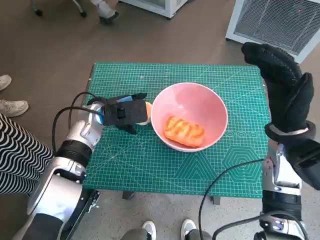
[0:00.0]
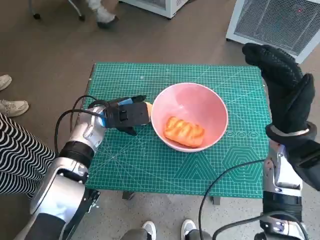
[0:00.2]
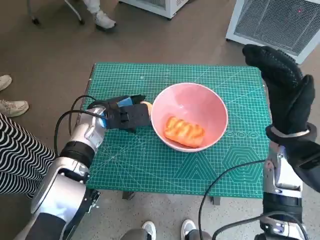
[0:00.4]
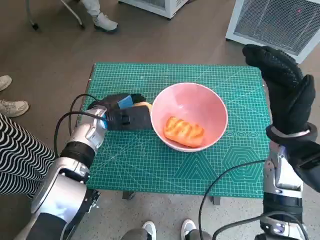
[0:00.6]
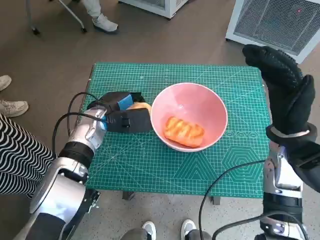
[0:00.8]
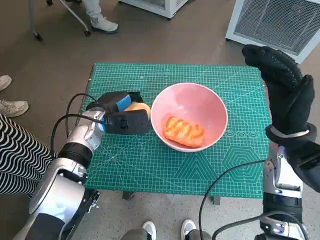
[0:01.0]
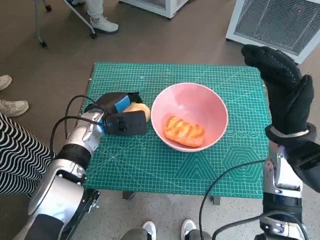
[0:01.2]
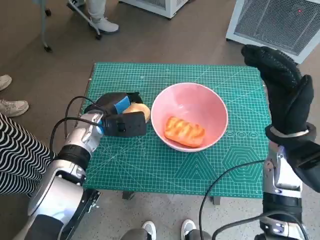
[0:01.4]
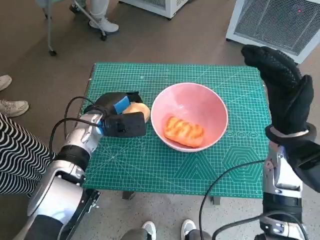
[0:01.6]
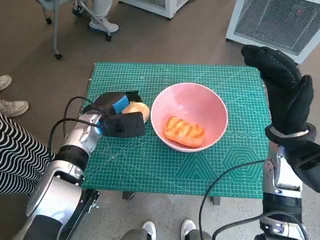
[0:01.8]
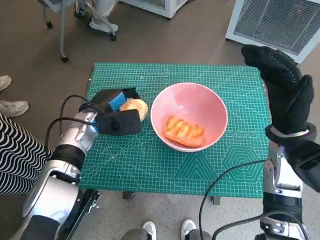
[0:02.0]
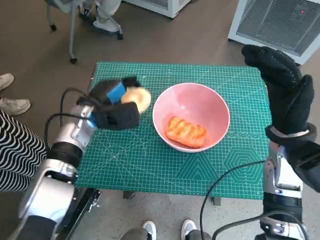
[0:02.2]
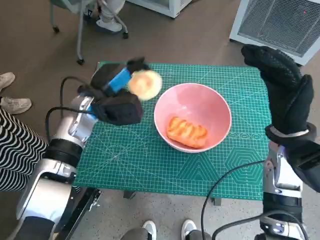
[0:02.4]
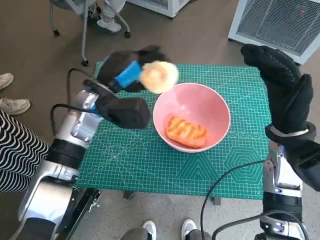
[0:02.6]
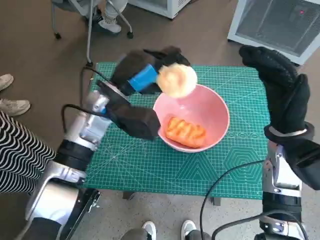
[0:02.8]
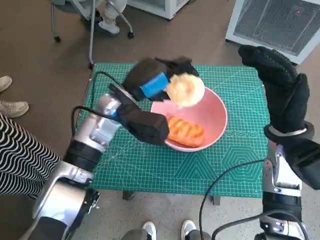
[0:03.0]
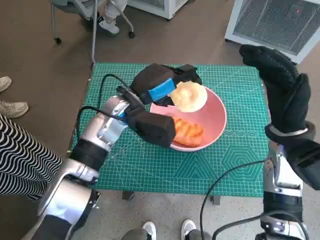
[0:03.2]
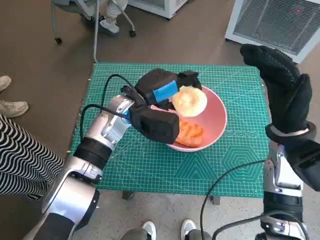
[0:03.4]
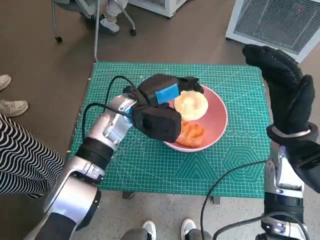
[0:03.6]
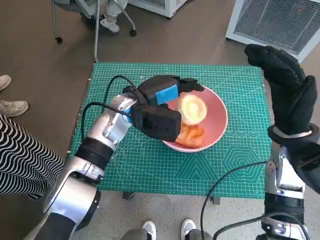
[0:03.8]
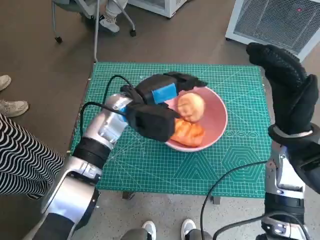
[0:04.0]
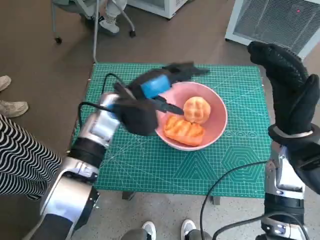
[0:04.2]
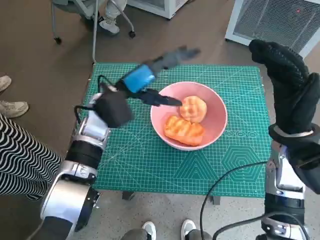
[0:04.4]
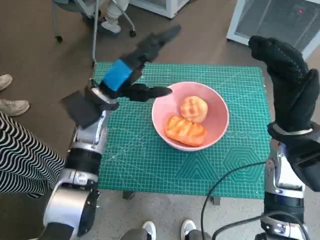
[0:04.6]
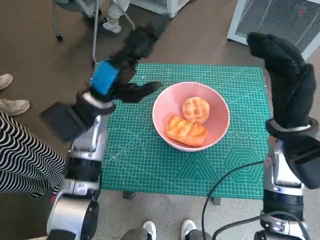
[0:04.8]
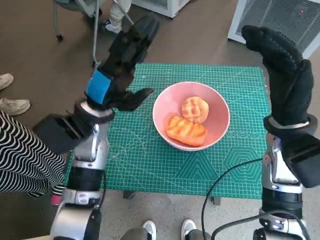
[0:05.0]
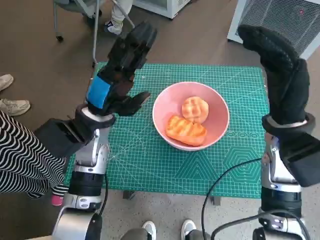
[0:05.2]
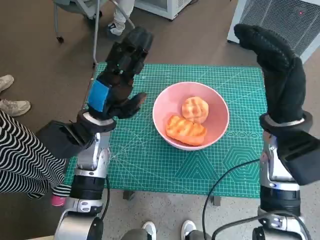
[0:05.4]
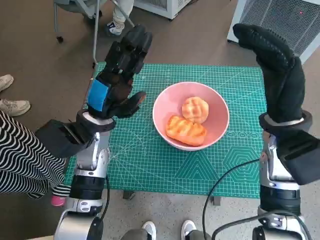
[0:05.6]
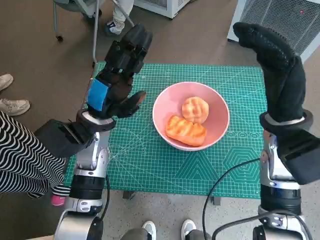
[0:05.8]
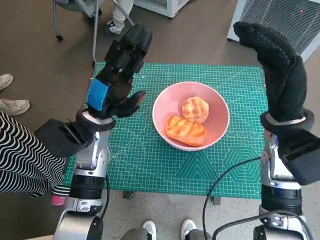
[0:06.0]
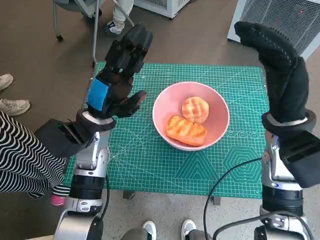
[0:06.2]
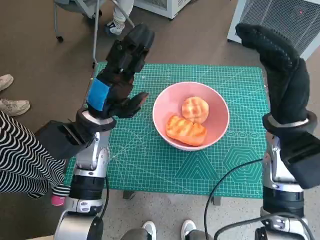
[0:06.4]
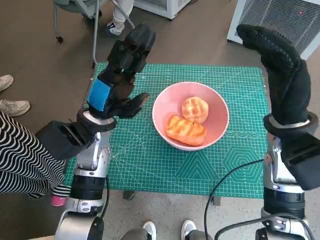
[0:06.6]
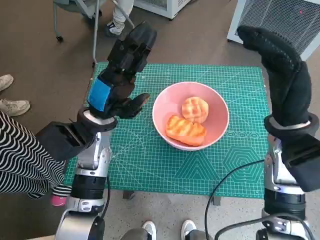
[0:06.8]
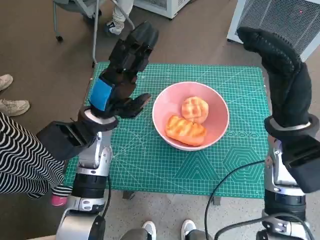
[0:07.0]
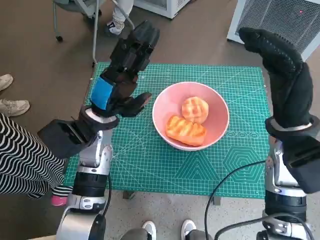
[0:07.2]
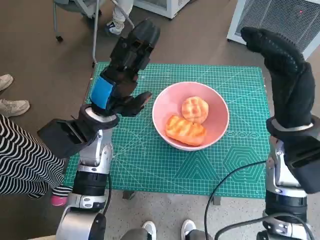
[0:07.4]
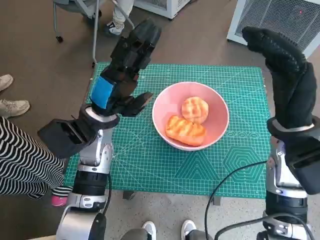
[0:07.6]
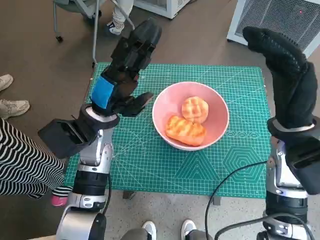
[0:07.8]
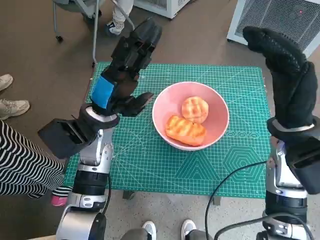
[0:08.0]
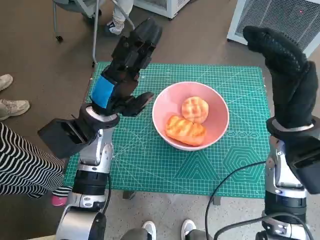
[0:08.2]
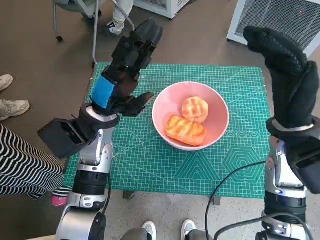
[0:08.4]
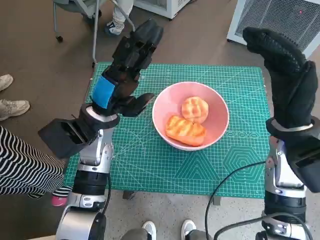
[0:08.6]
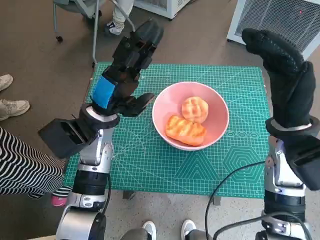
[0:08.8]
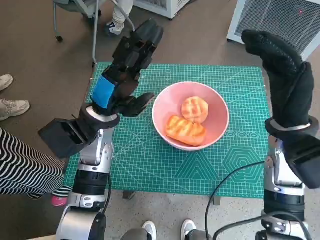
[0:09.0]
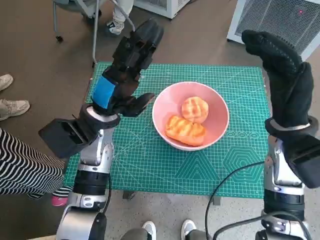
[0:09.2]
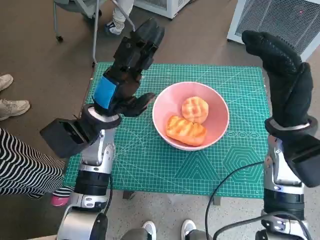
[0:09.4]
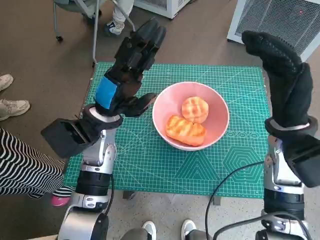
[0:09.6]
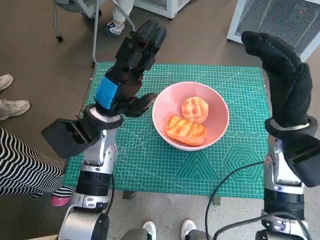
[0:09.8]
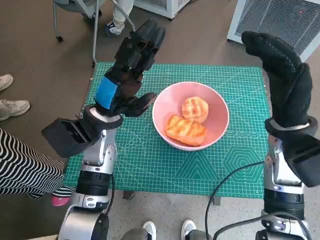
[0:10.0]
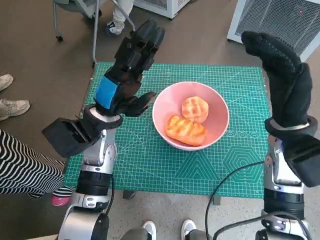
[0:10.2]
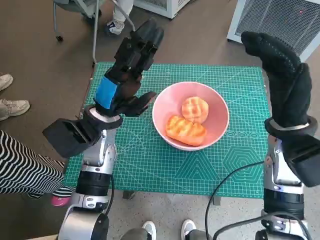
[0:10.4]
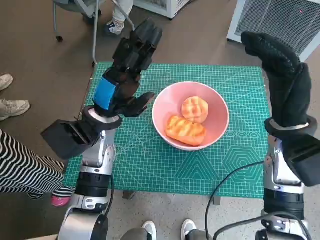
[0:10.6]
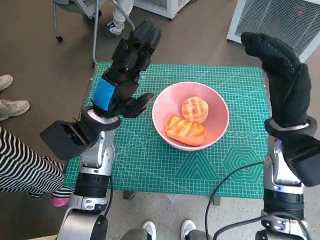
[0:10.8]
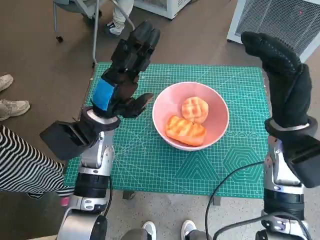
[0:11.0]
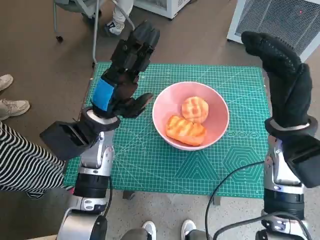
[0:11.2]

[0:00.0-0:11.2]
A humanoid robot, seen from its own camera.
Task of the whole recording: Push the bowl into the center of the table and put the bread into the bowl.
Step, 0:01.0 to 0:04.4: Place the round bread in pink bowl with left hand.
0:00.0 to 0:01.6: There are only small adjustments of the hands.
0:01.6 to 0:03.2: The left hand travels to the right and upward by about 10 cm.
0:03.2 to 0:04.8: The left hand is displaced to the left by approximately 5 cm.
0:06.4 to 0:08.0: Both hands stay about where they are.
0:08.0 to 0:09.6: The two hands keep their place.
0:09.6 to 0:11.2: Both hands stay put.

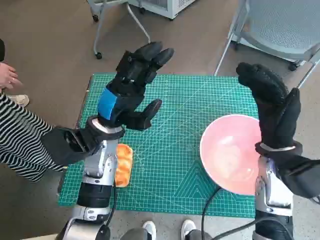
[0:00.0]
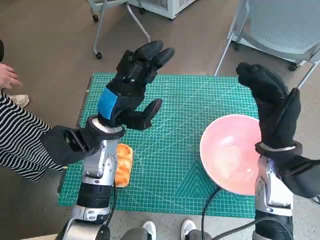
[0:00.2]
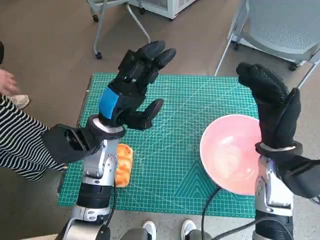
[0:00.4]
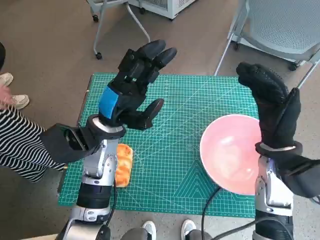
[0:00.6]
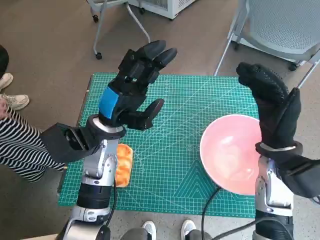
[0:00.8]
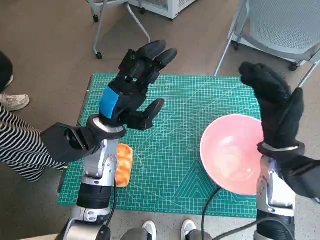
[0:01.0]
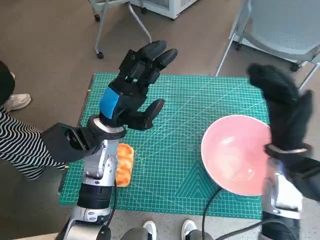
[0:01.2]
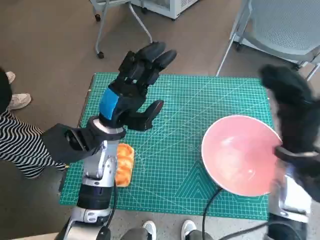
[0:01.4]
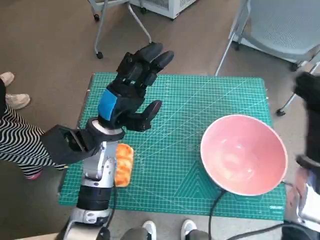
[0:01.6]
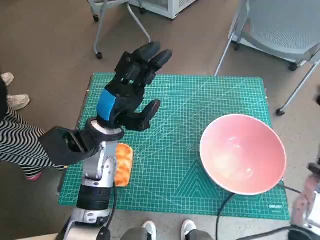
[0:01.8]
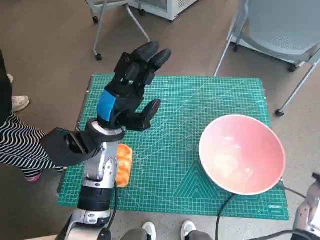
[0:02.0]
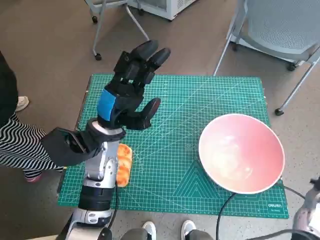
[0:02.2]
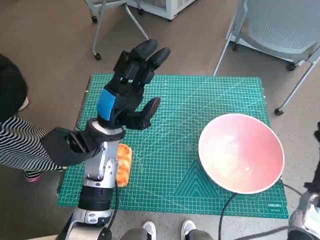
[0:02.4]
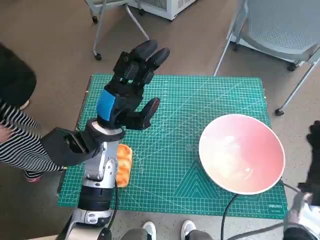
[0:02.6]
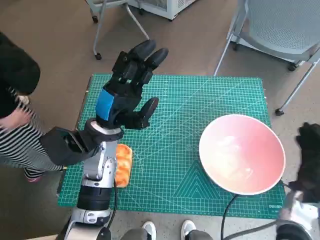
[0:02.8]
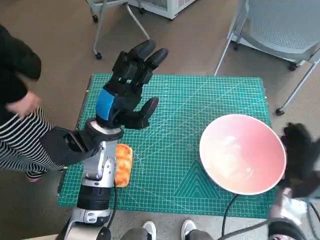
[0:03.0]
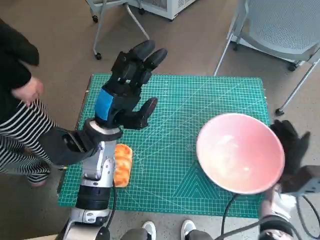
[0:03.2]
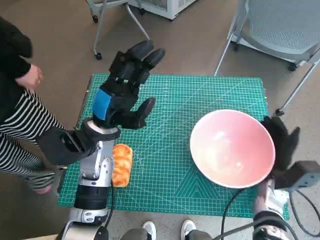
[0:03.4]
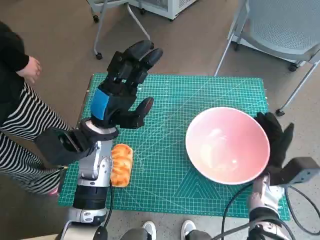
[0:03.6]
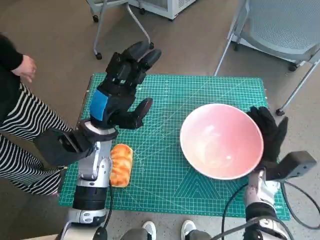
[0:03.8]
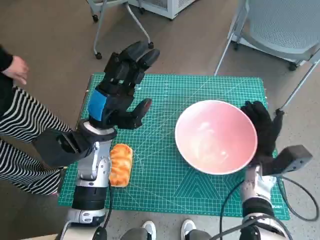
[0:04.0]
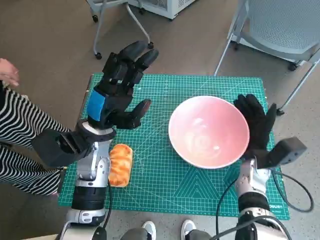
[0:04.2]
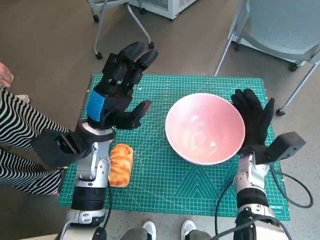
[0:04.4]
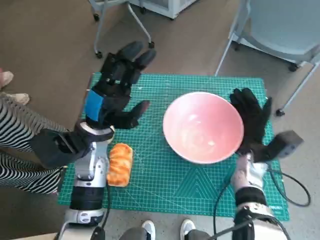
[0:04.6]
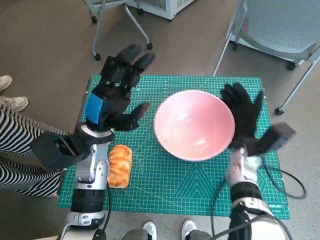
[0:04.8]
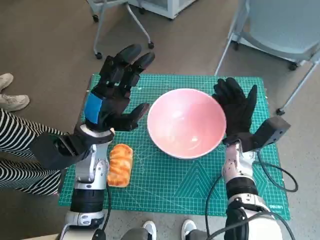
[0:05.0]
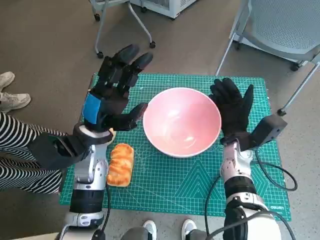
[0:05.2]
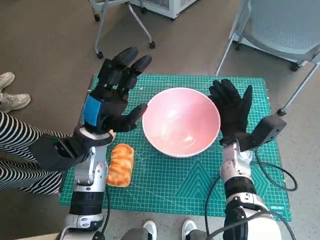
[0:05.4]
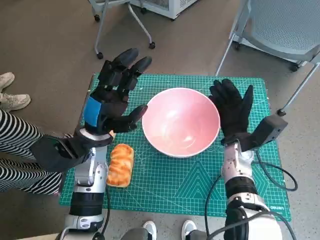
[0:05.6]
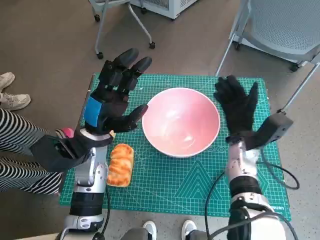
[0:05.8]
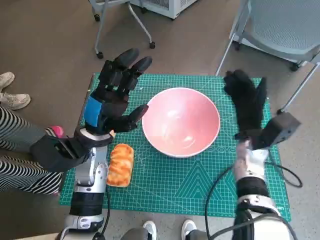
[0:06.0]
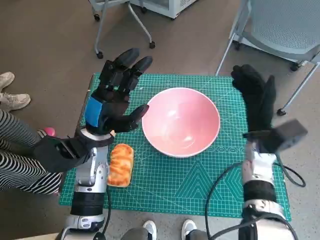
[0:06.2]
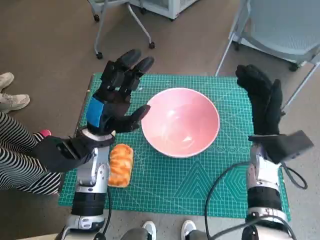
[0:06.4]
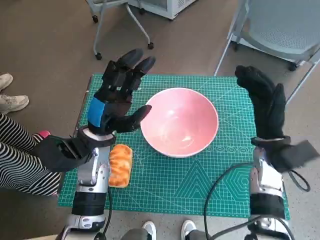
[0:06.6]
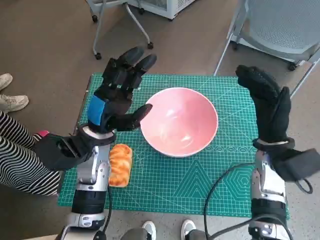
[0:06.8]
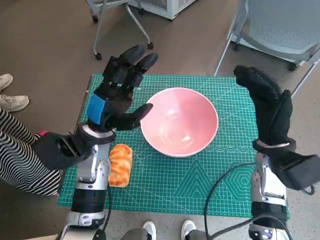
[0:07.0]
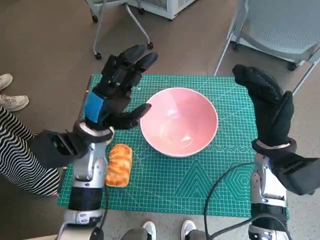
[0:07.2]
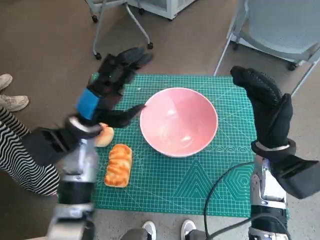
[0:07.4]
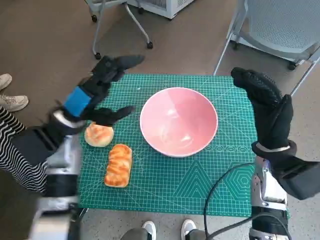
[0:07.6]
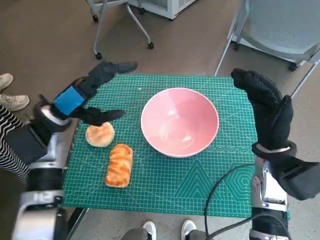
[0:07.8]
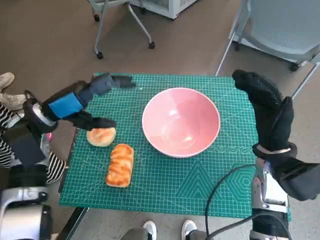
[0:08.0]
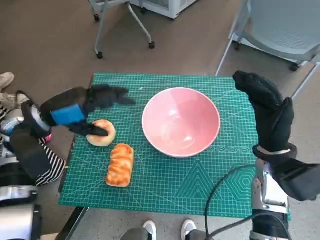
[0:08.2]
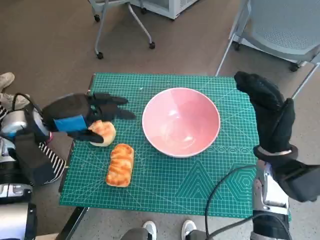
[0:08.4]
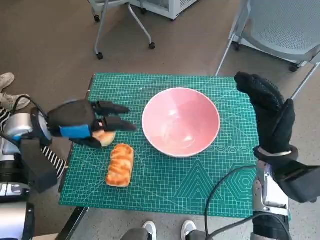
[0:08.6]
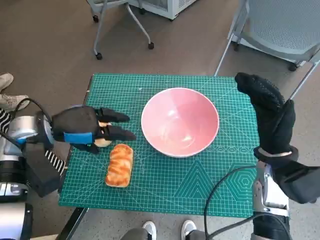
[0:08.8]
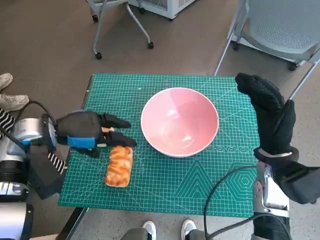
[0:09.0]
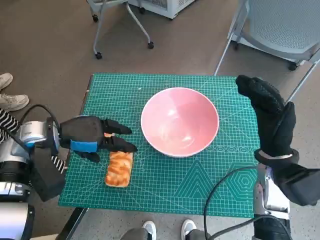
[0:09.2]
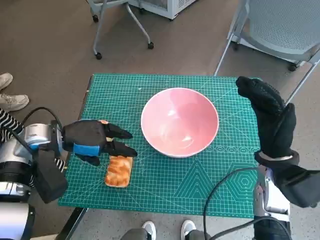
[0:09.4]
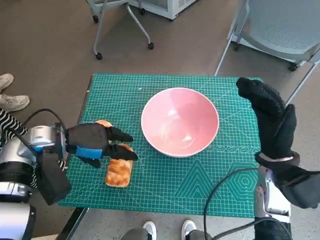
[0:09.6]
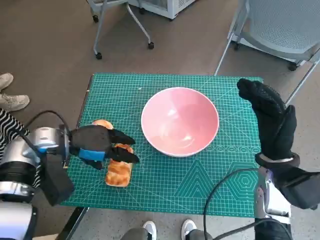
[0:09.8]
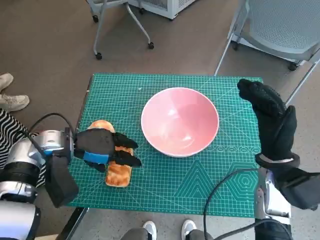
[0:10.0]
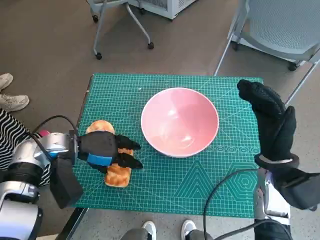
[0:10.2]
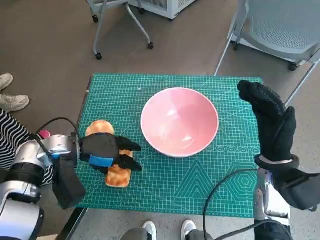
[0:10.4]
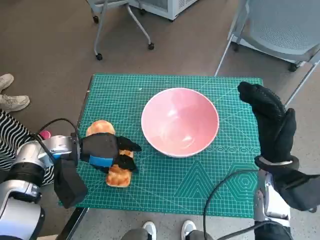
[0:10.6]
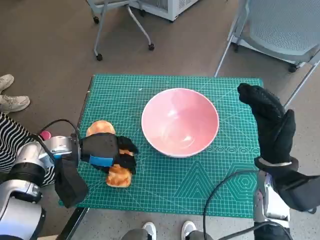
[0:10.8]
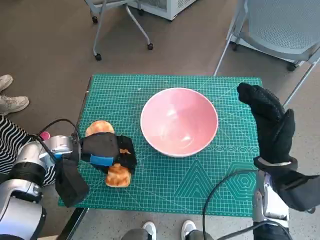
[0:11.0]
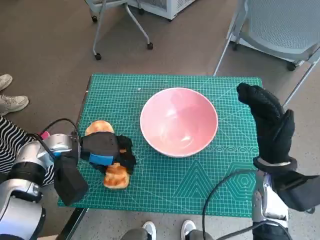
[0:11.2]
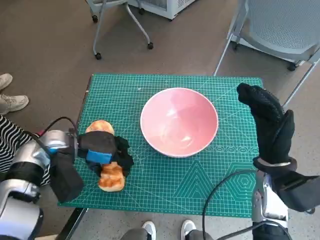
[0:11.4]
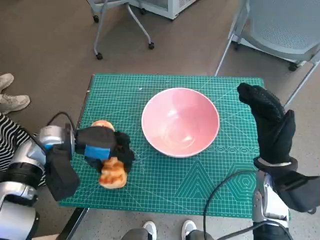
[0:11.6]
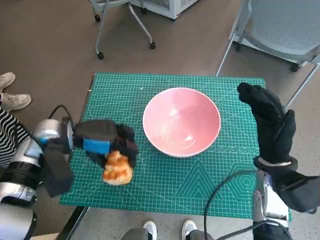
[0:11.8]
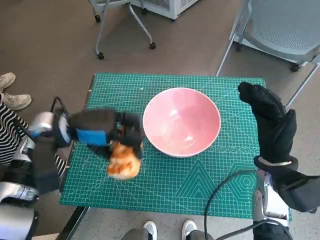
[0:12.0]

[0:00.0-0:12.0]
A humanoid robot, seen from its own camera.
Task of the whole recording: Push the bowl into the center of the table and put the bread into the bowl.
Step, 0:00.0 to 0:05.8: Move the pink bowl to the center of table with right hand.
Step, 0:06.0 to 0:11.0: Grasp the long bread with left hand.
0:01.6 to 0:03.0: The right hand travels downward by about 15 cm.
0:03.0 to 0:04.4: The right hand heads to the left and forward, covering about 10 cm.
0:06.0 to 0:07.6: The right hand travels upward and backward by about 10 cm. The left hand shifts by approximately 5 cm.
0:07.6 to 0:09.0: The left hand moves to the left, about 5 cm.
0:09.0 to 0:10.4: The left hand goes roughly 5 cm downward.
0:10.4 to 0:12.0: The left hand moves upward, roughly 5 cm.
